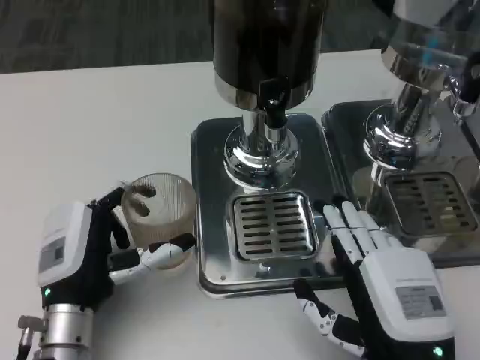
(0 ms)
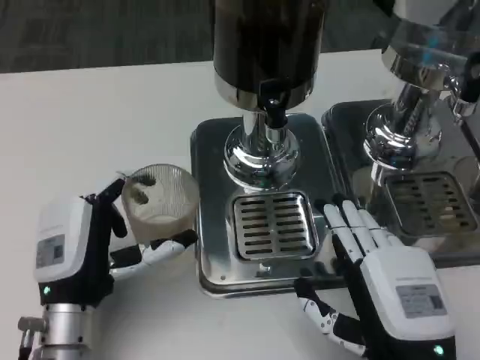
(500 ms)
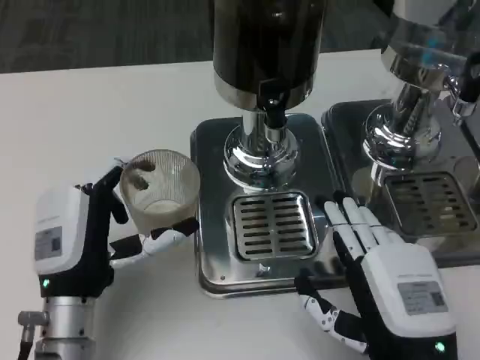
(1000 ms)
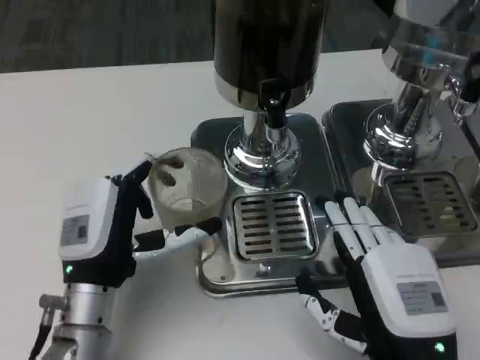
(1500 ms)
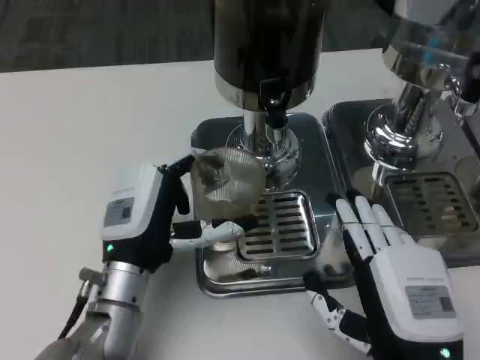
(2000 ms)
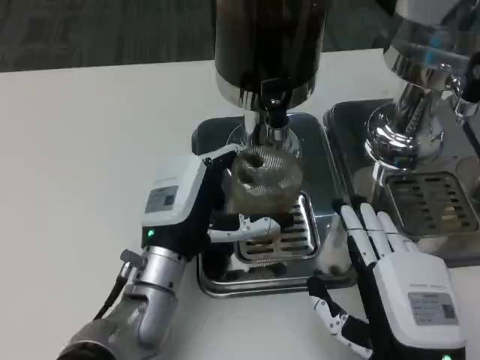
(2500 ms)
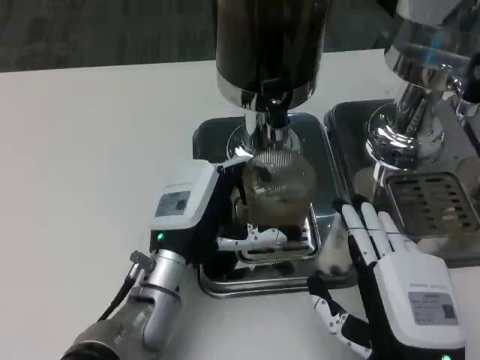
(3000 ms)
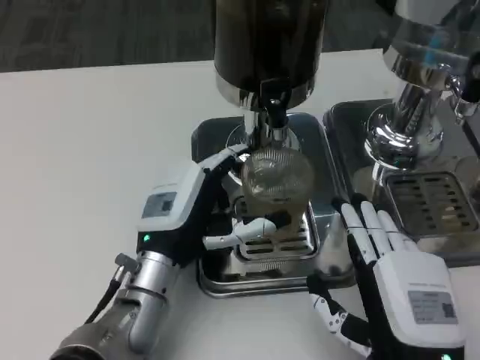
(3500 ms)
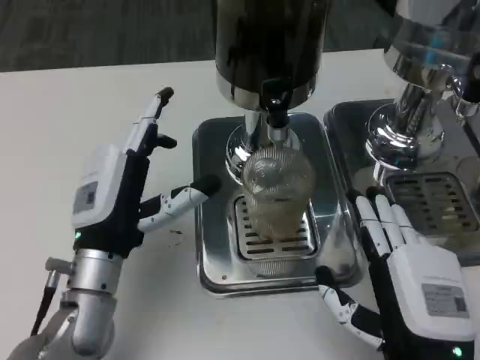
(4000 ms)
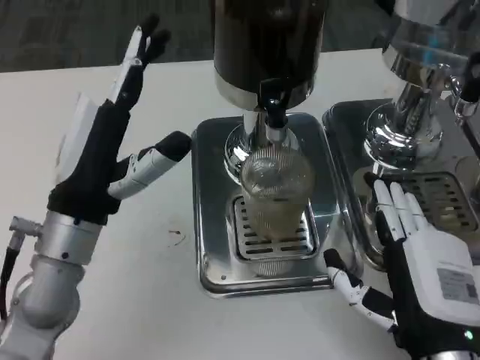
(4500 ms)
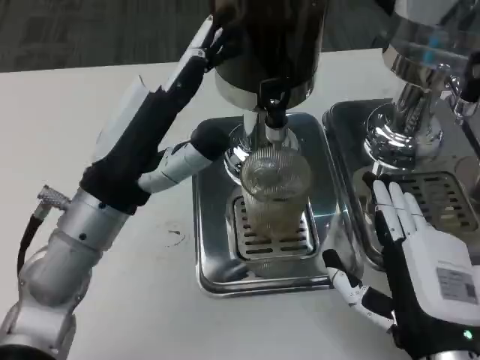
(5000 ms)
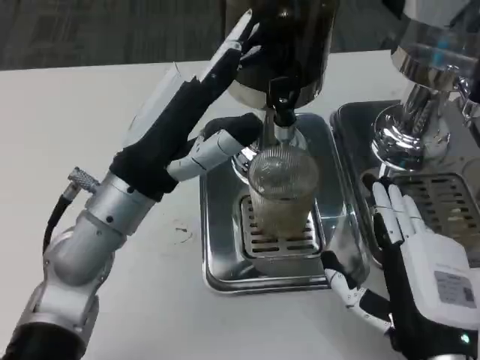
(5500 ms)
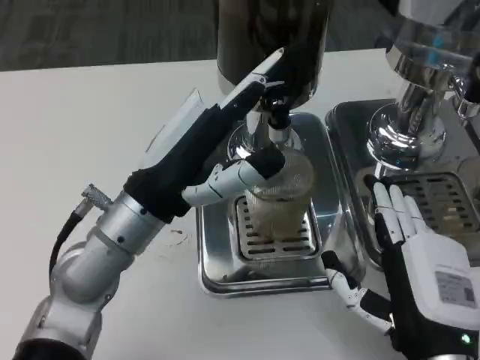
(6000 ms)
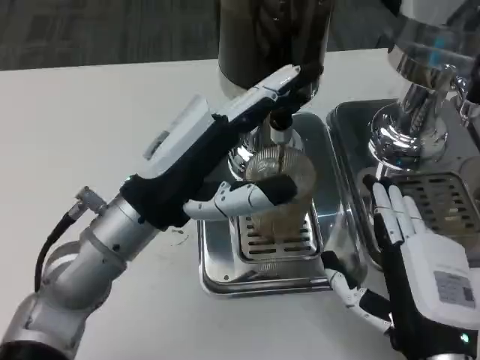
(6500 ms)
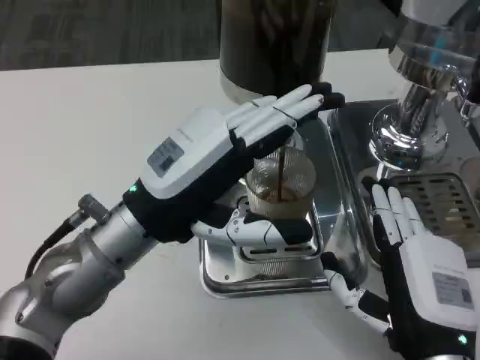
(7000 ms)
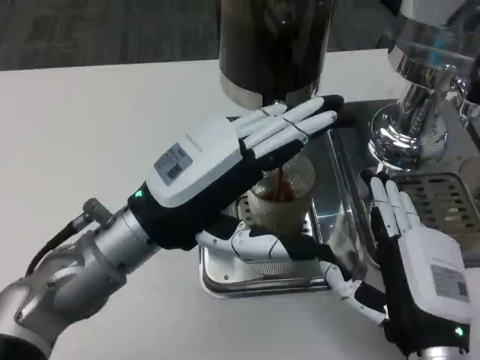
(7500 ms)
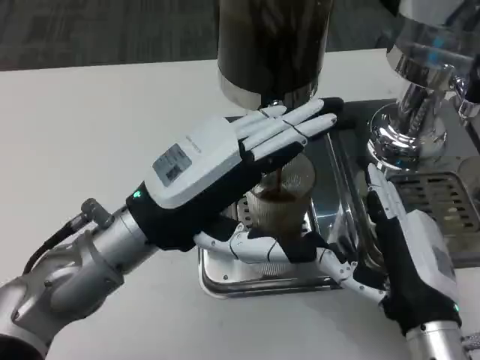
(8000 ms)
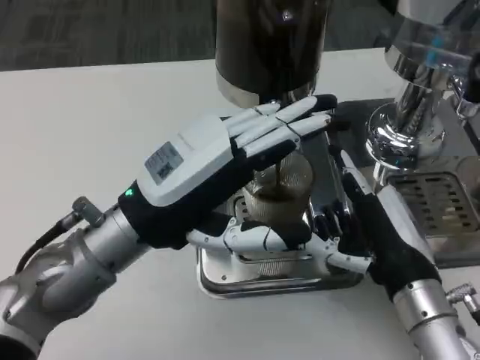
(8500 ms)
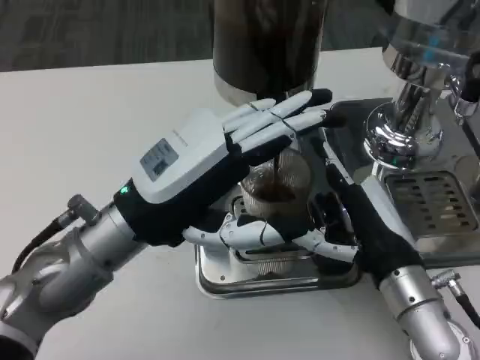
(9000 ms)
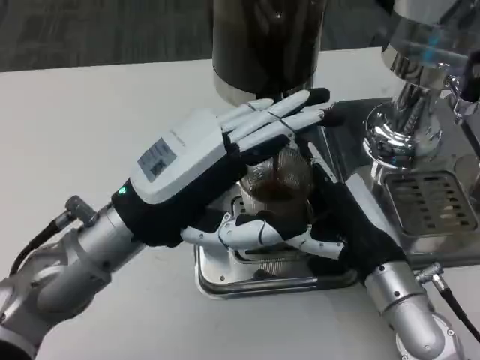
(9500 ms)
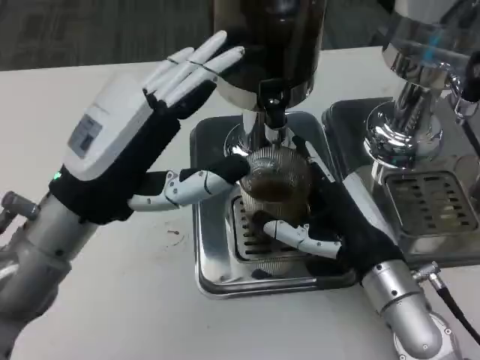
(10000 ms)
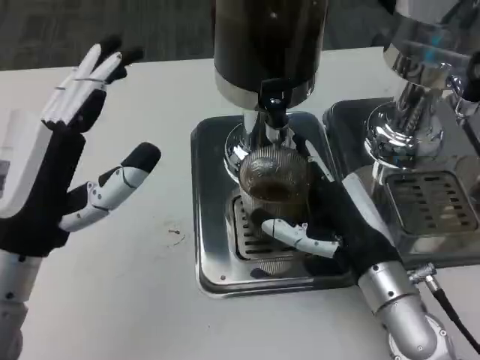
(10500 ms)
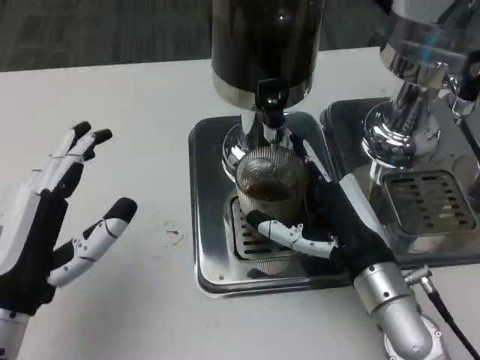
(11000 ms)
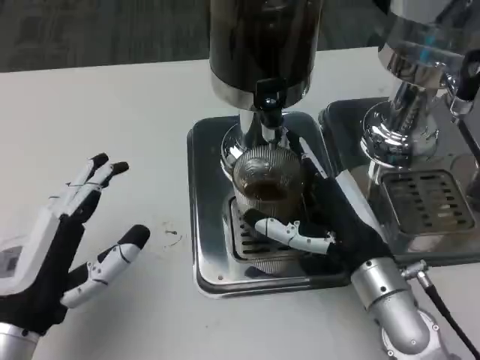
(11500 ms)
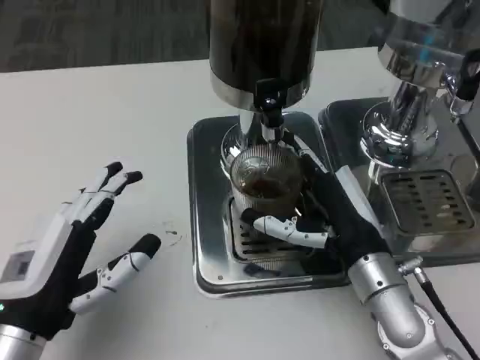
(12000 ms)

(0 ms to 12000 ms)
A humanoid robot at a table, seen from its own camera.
Task of the whole recording: Grasp the cup under the faucet to collect the drink, then remove the cup.
0 ms - 2000 ms: The left hand changes place by about 5 cm.
4000 ms - 6000 ms: The left hand travels upward by some 5 cm.
8000 ms - 10000 ms: The right hand heads forward, covering approximately 5 cm.
10000 ms - 12000 ms: The left hand is displaced downward and backward by some 10 cm.

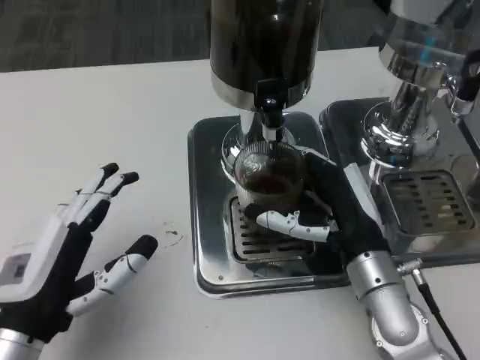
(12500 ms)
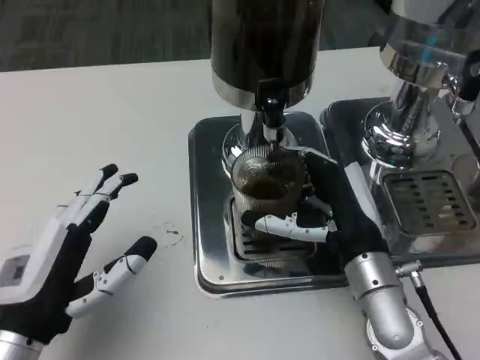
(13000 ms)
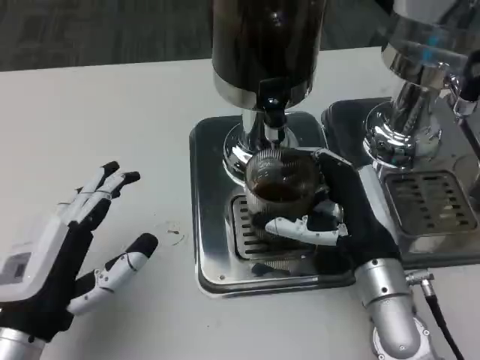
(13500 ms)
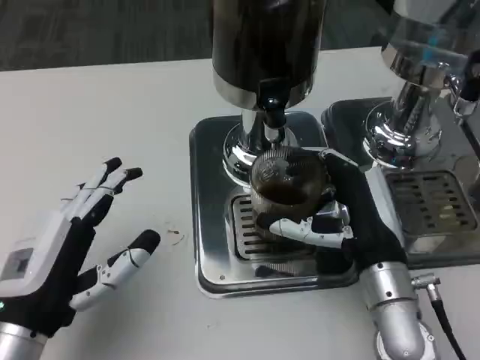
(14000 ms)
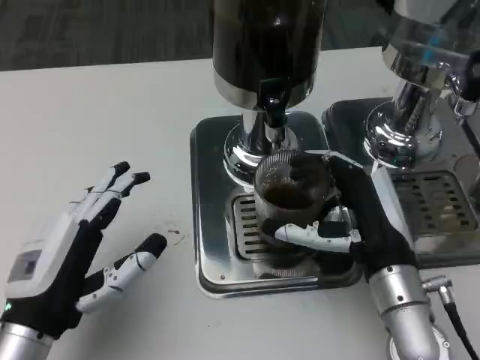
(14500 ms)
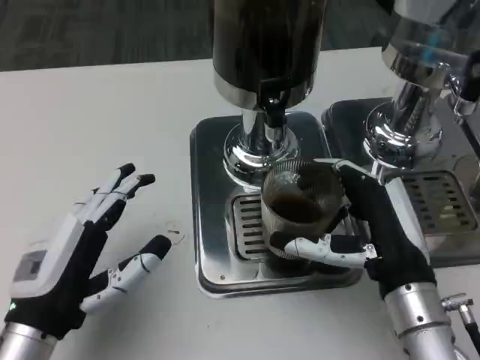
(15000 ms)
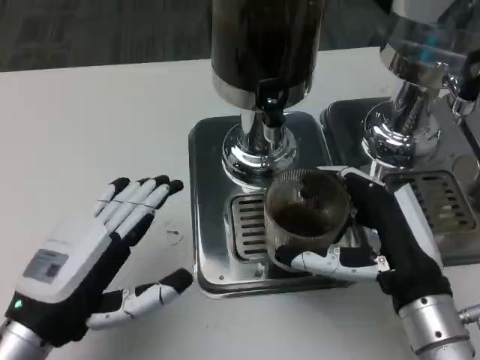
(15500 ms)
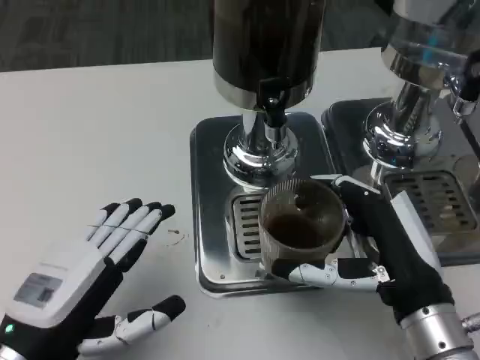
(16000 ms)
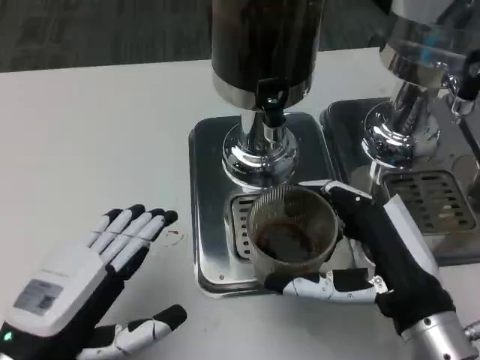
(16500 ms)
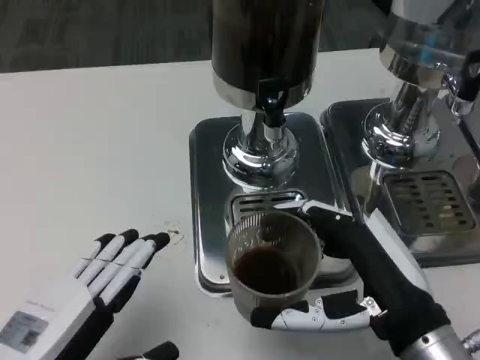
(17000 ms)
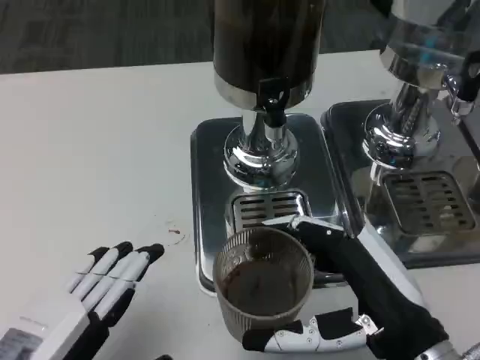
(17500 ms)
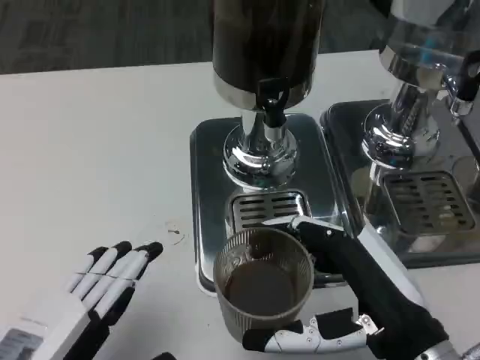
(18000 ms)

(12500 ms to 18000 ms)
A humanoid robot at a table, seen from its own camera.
Task of the whole recording: Grasp the cup under the faucet to collect the drink, then remove the cup.
14500 ms - 16000 ms: The right hand heads backward, covering roughly 5 cm.
16000 ms - 18000 ms: The left hand moves backward, about 5 cm.

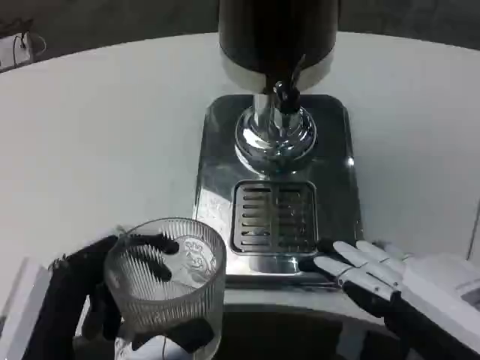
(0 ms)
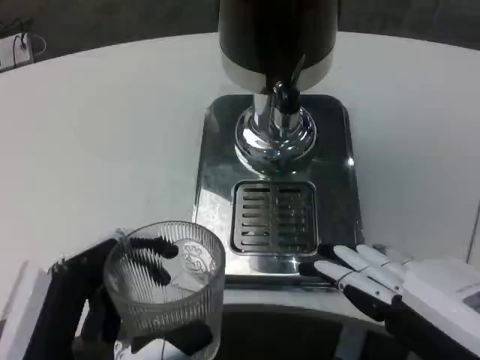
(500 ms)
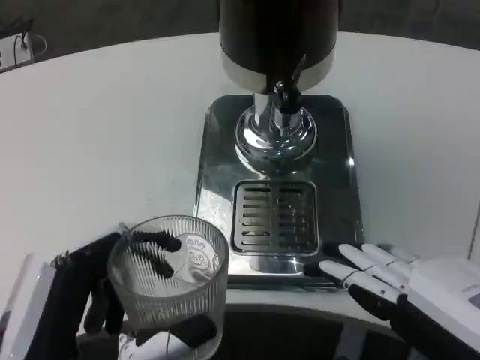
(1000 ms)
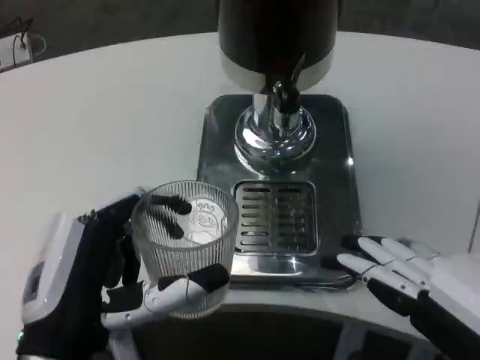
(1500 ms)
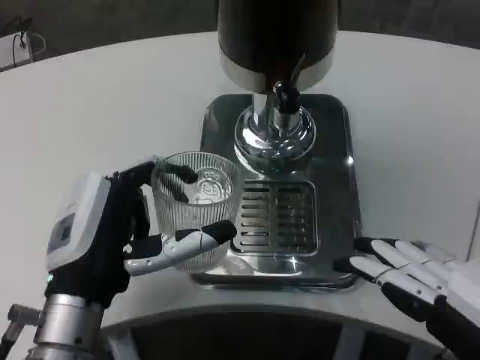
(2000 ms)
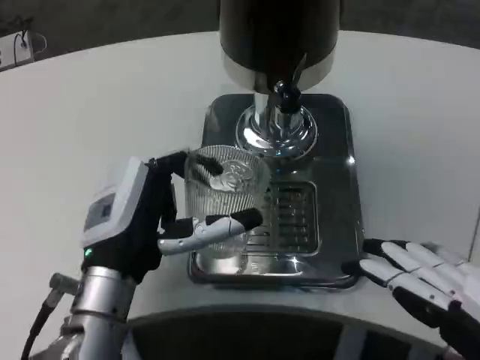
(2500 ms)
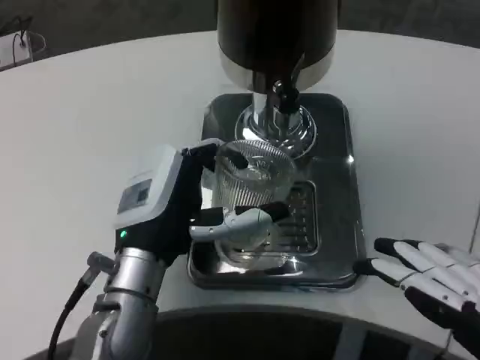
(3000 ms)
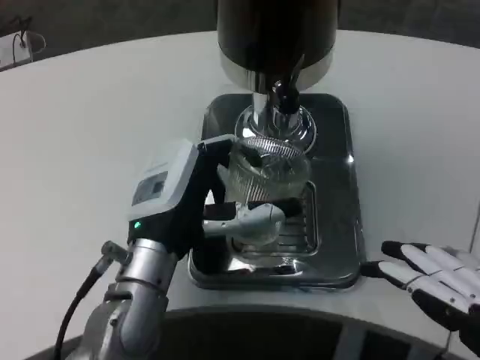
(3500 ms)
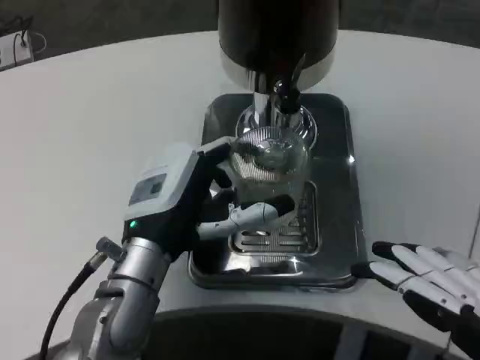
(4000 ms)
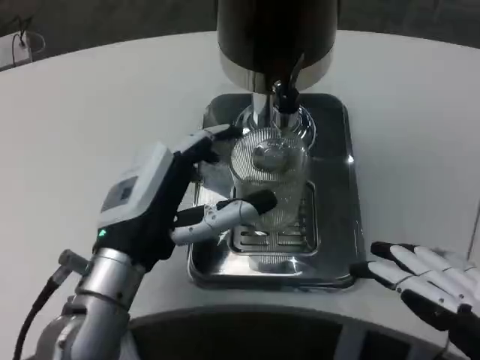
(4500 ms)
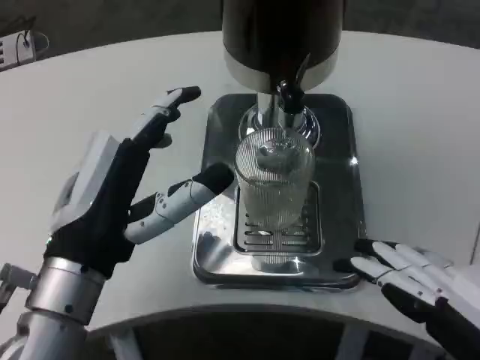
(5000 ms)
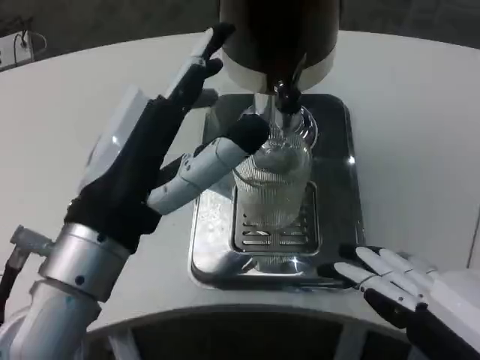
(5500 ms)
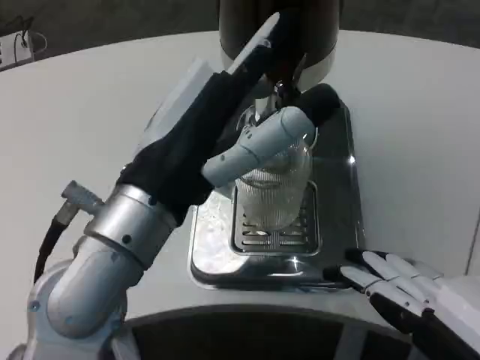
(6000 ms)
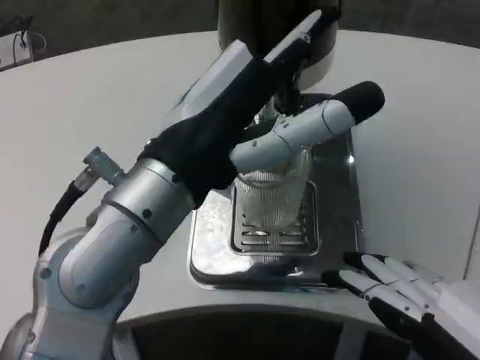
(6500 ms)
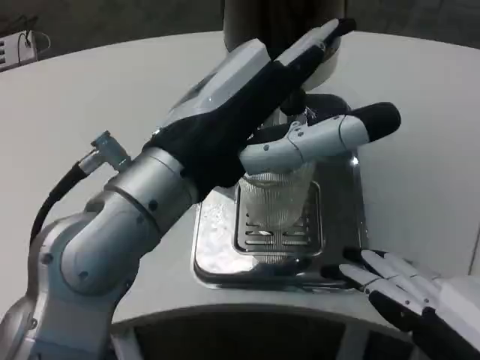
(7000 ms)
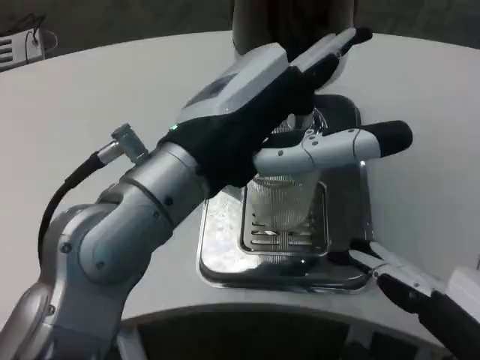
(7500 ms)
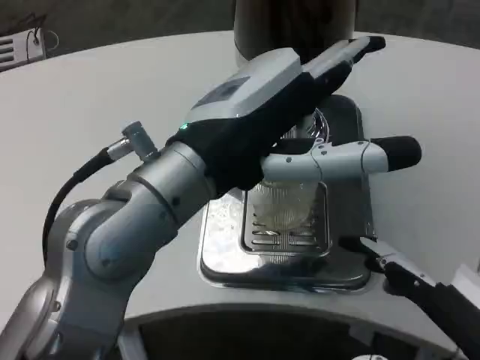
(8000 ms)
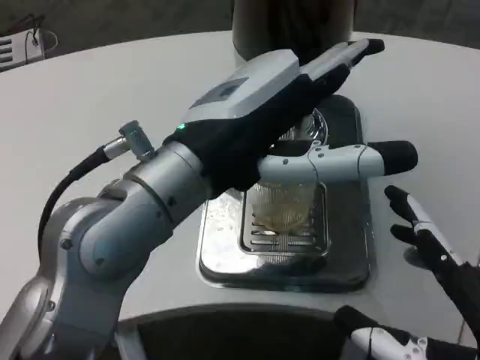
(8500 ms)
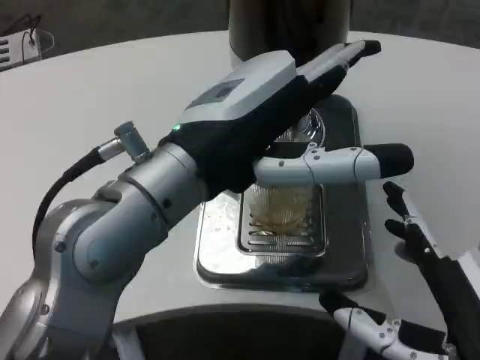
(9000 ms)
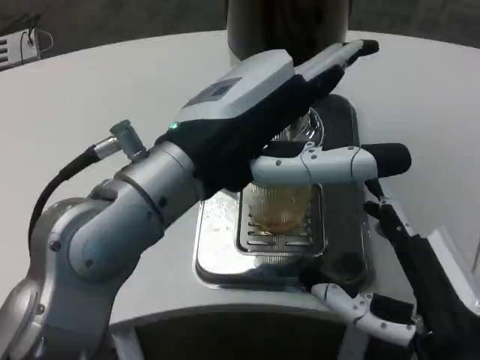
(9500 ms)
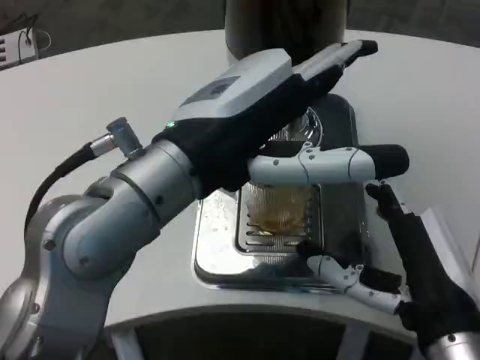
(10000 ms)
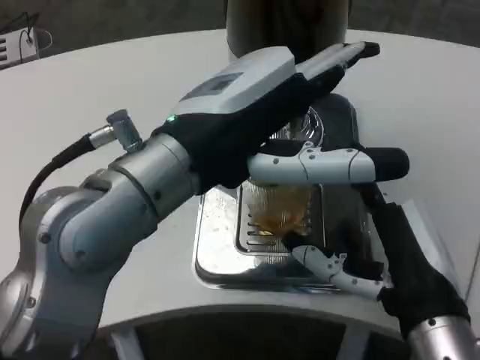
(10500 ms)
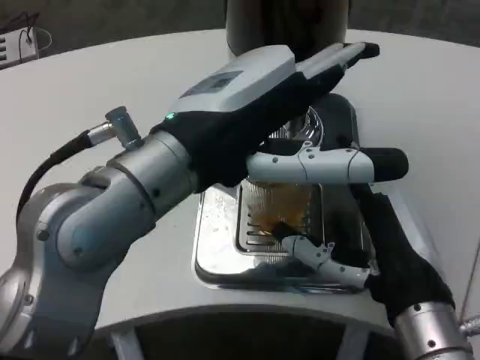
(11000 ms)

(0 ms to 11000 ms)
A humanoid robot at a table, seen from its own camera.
Task of the whole recording: Grasp the cup under the faucet to collect the drink, then remove the cup.
0 ms - 2000 ms: The left hand travels forward by some 10 cm.
2000 ms - 3500 ms: The left hand moves forward, about 5 cm.
3500 ms - 5500 ms: The left hand moves backward and upward, some 10 cm.
5500 ms - 7500 ms: The left hand is displaced upward by approximately 5 cm.
7500 ms - 9000 ms: The right hand moves roughly 5 cm.
9000 ms - 11000 ms: The right hand moves forward, some 10 cm.
